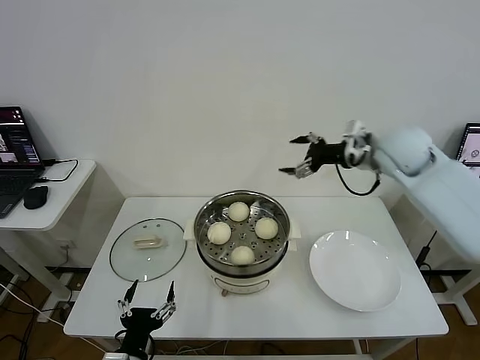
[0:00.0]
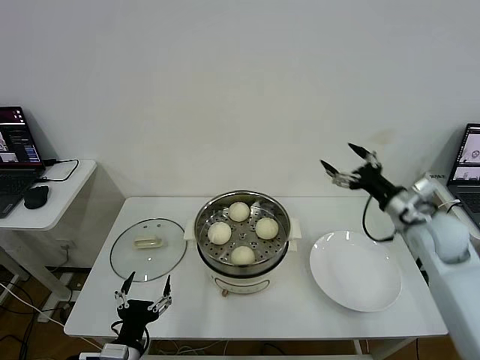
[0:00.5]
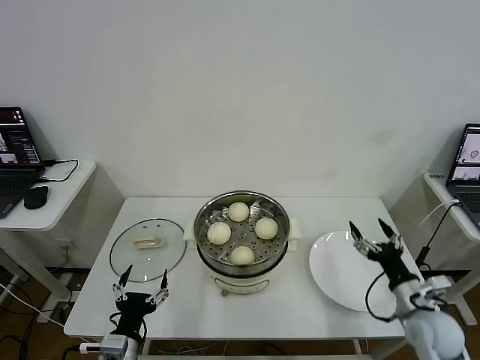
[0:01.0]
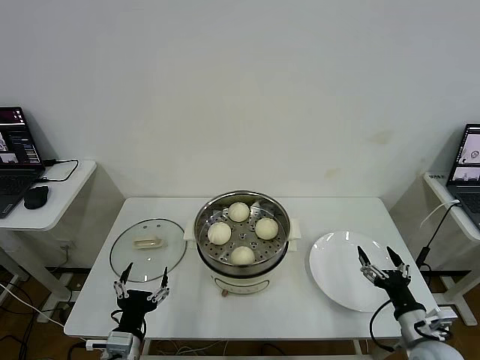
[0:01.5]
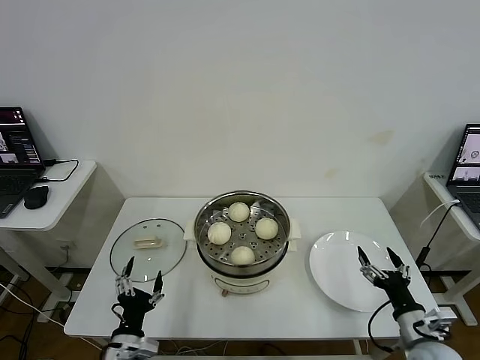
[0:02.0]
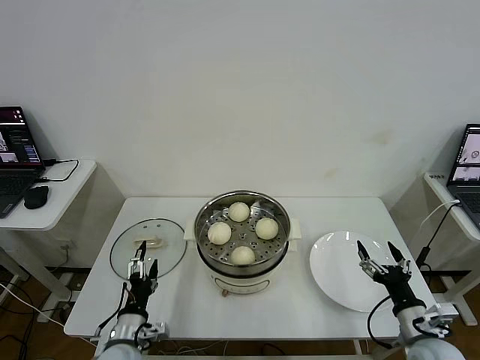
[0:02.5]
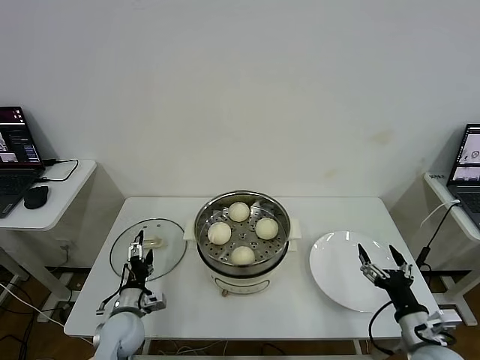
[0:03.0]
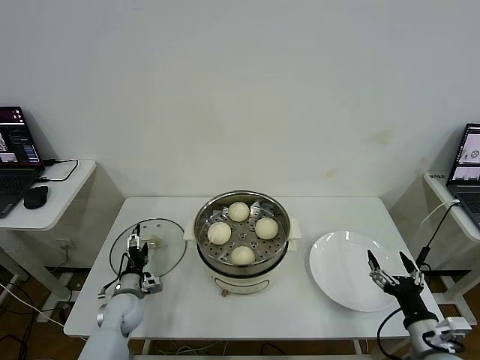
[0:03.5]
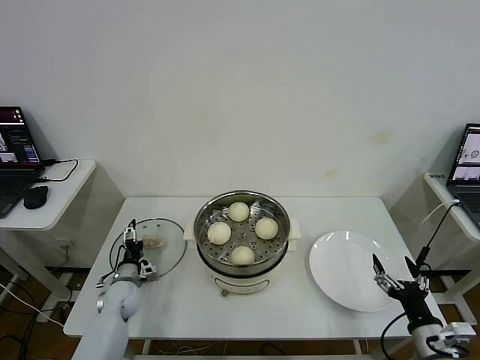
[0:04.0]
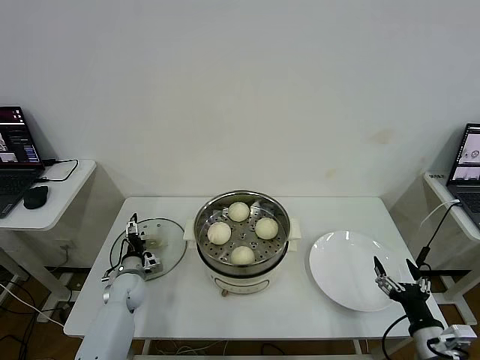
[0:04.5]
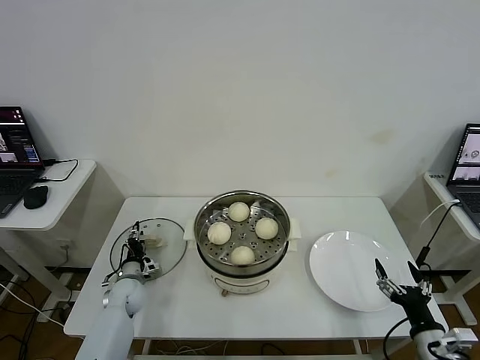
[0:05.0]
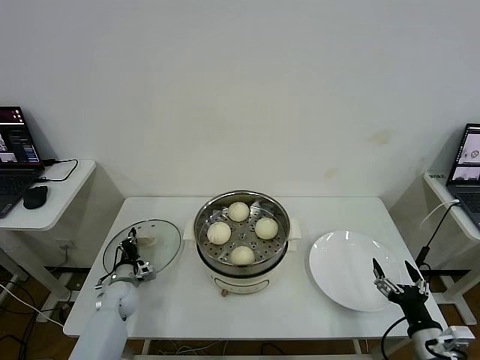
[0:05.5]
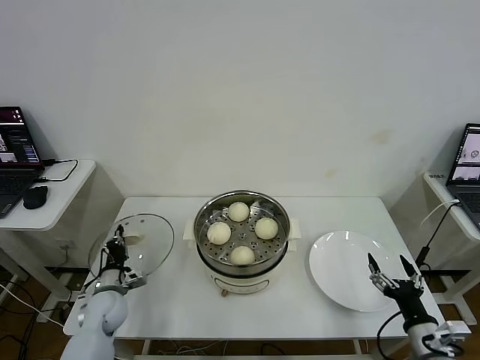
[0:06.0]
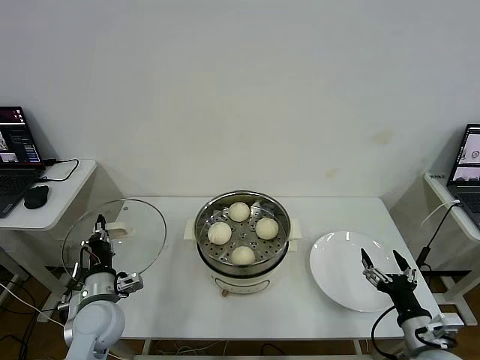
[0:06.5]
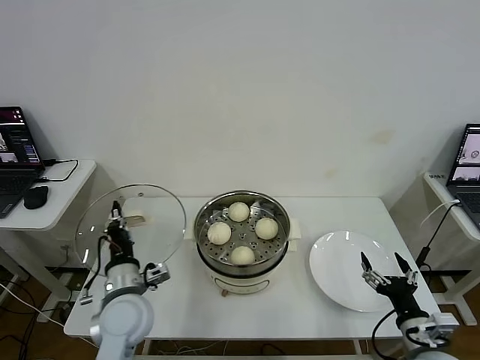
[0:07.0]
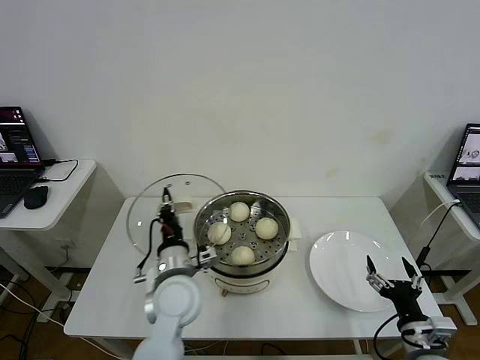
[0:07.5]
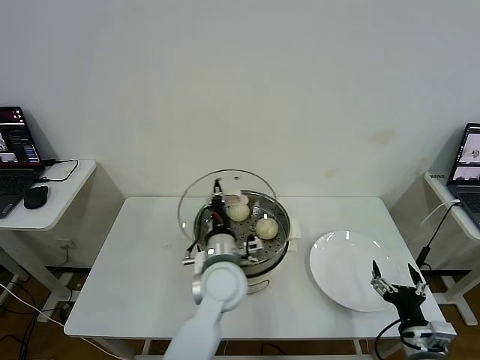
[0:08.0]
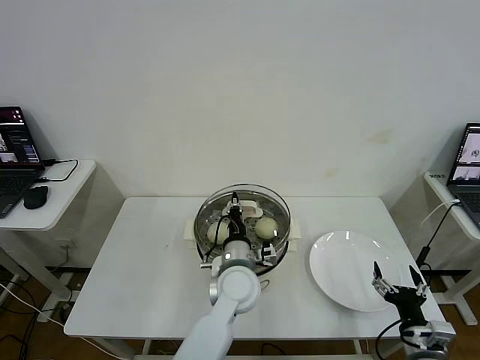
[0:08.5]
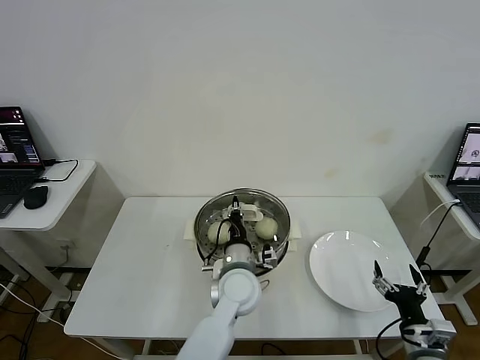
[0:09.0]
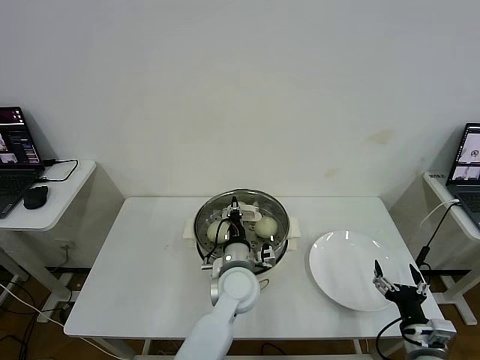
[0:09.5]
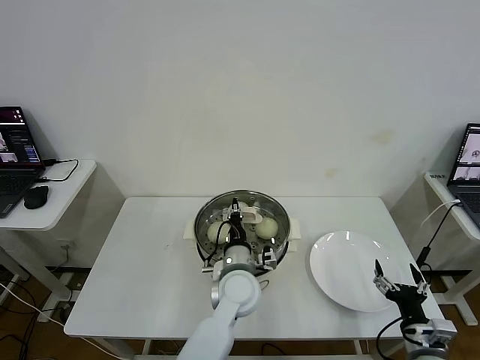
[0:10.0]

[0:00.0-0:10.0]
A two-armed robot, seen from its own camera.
Task of the whole recording: take steamed baozi put them in steamer then cover it.
Step, 0:00.0 to 0:05.5: Grasp the pot lid with left gripper.
0:00.0 to 0:02.0: The left gripper shifts by approximately 5 cm, while the right gripper travels backward and downward by some 40 cm.
0:02.0 to 0:04.0: The left gripper travels forward by approximately 20 cm.
0:04.0 to 0:06.0: The left gripper closes.
0:06.0 to 0:08.0: The left gripper is displaced to the right and upward by some 35 cm.
0:08.0 to 0:10.0: The left gripper changes place by about 5 cm.

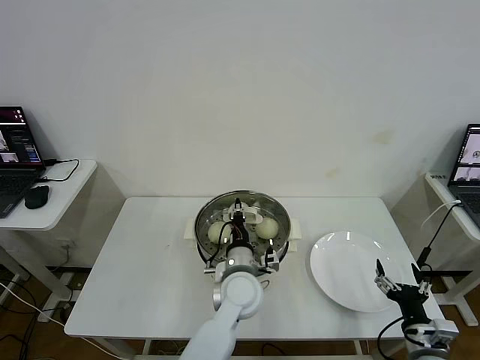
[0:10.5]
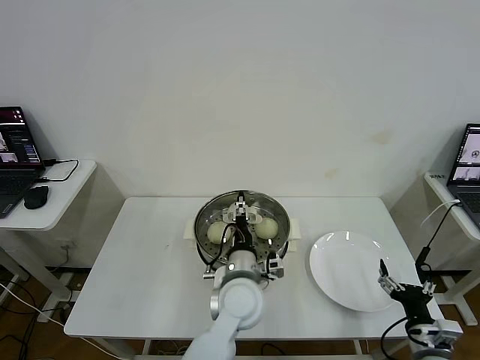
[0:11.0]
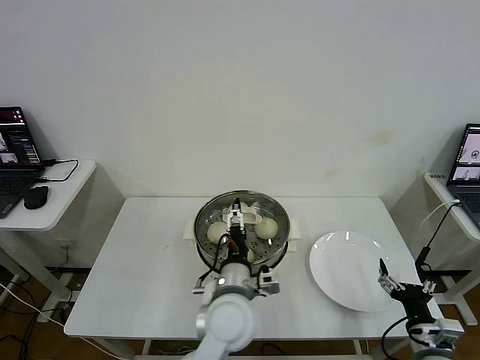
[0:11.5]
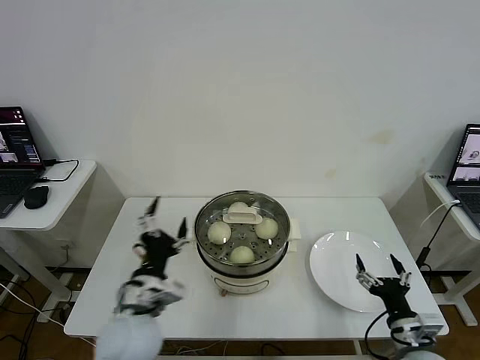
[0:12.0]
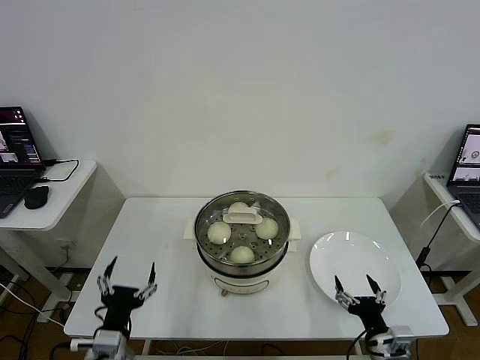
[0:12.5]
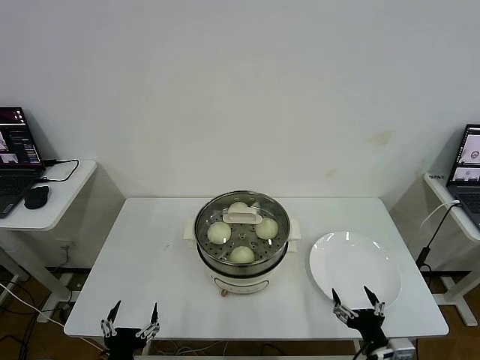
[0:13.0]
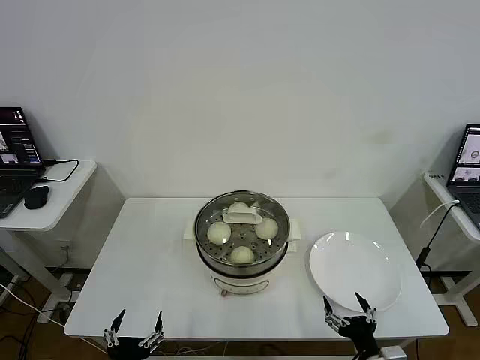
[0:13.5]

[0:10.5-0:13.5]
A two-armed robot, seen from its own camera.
Task of the whole recording: take steamed baozi put them in steamer then cover it.
0:10.5 to 0:12.0: The left gripper travels to the left and backward by approximately 20 cm, and opens up.
0:12.0 to 0:13.5: The right gripper travels to the left and backward by some 10 cm. Meanwhile the left gripper heads backward, downward and to the left, covering approximately 20 cm.

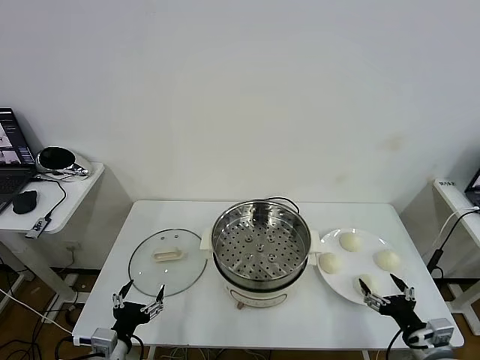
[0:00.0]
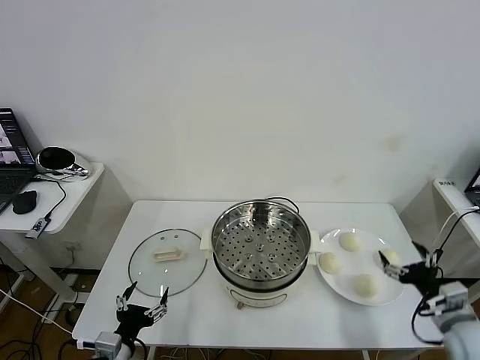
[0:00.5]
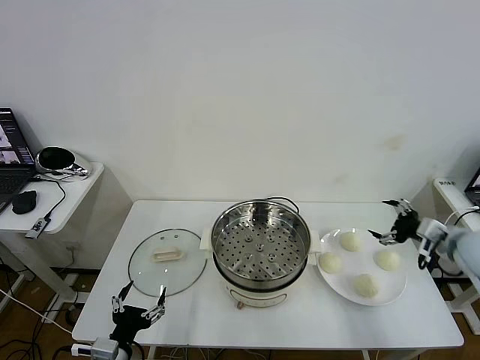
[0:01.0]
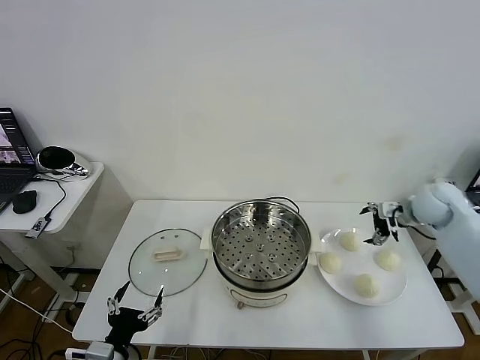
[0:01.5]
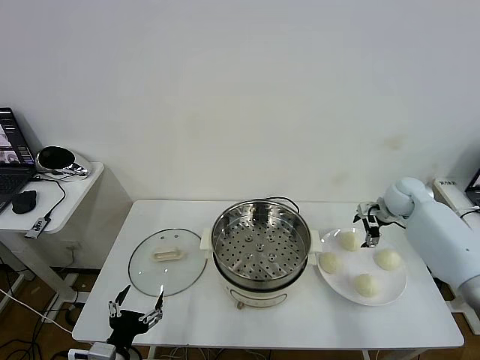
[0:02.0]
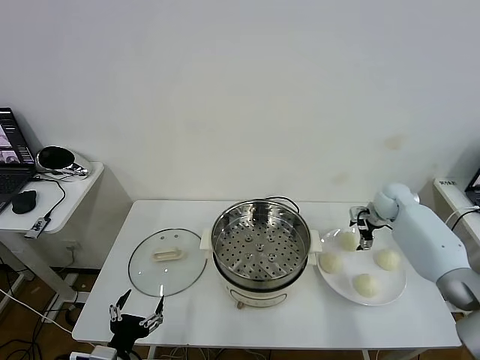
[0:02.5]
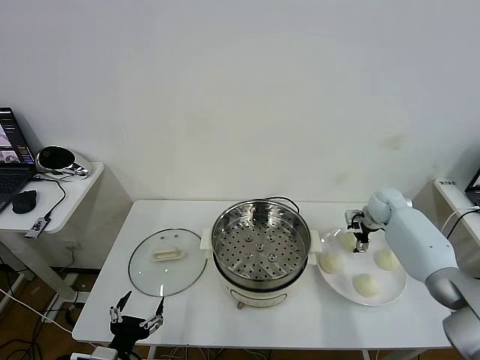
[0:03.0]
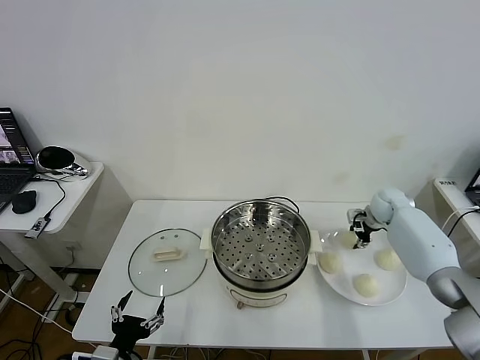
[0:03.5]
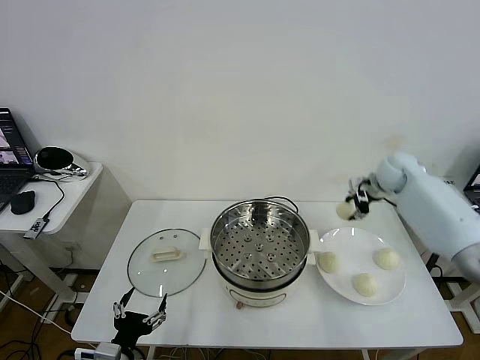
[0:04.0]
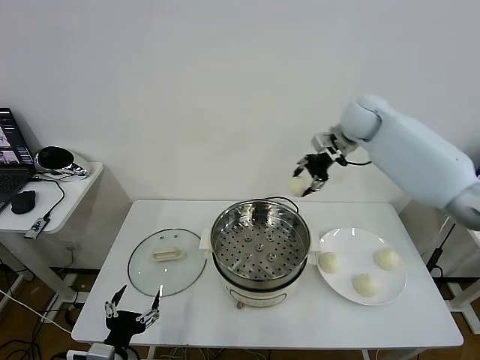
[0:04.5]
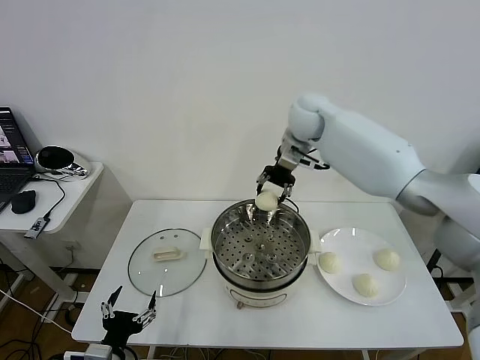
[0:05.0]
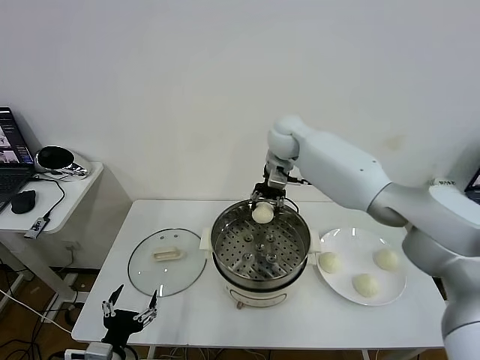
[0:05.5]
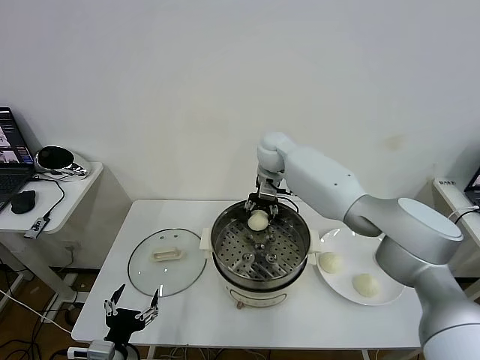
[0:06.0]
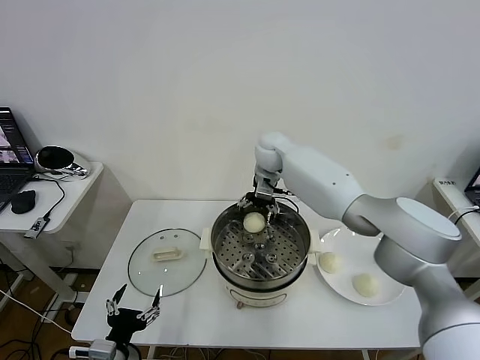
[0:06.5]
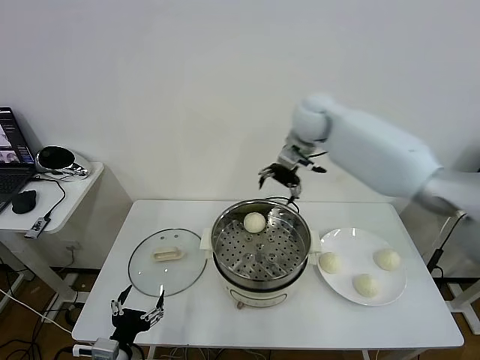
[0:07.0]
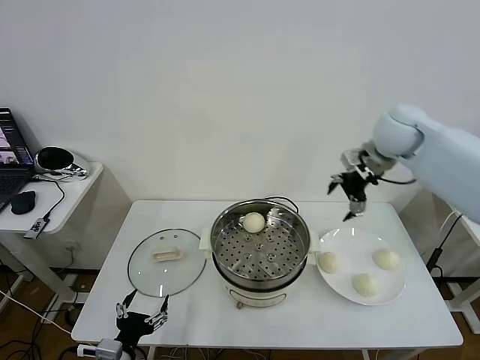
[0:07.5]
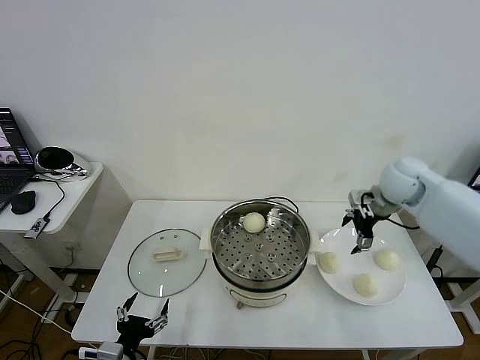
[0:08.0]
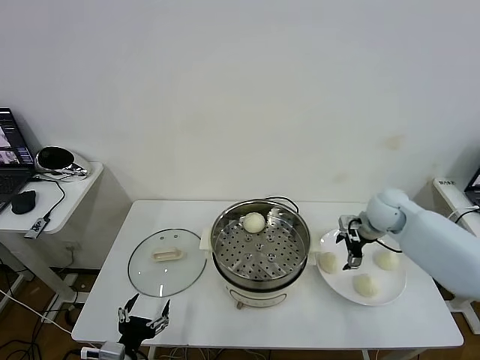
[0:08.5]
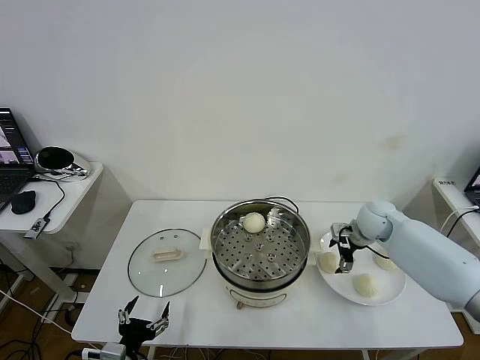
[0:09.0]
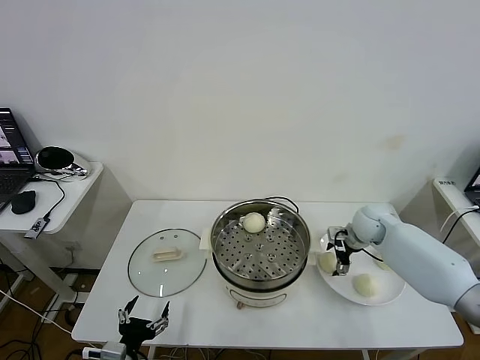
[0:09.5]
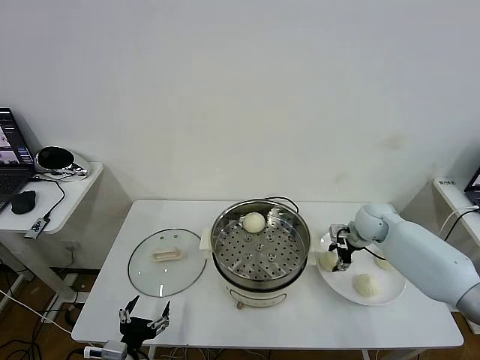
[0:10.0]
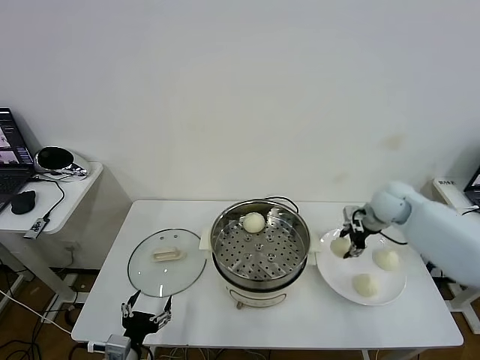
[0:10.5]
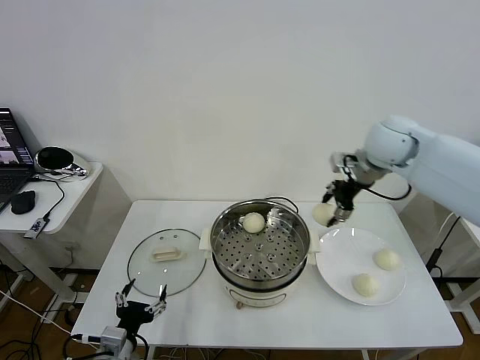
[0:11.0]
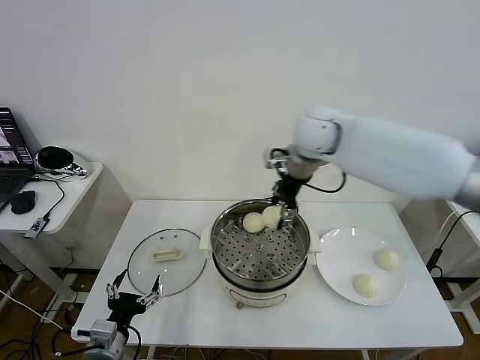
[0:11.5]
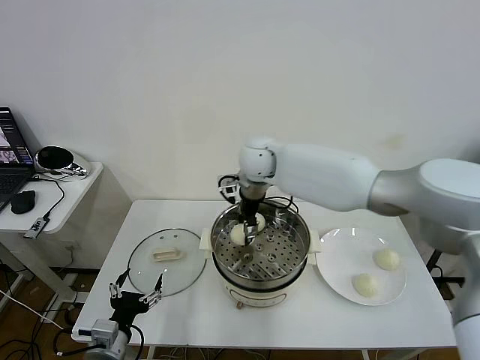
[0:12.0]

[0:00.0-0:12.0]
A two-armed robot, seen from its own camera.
Task of the whole recording: take steamed baozi put them in steamer then cover it.
Step, 0:00.0 to 0:03.0: Grasp the baozi in the plate with right gripper.
Step, 0:03.5 to 0:06.5: Place the baozi on the steamer with right gripper.
Step, 0:07.0 to 0:09.5: Grasp the baozi in the plate with right gripper.
0:02.0 to 0:04.0: The right gripper goes about 15 cm upward and to the left, and closes.
0:04.0 to 0:06.0: The right gripper goes roughly 30 cm to the left.
0:06.0 to 0:08.0: The right gripper is displaced to the right and backward by roughly 30 cm, and opens up.
0:08.0 to 0:10.0: The right gripper heads downward, covering some 10 cm, and closes up.
0:10.0 to 0:12.0: The right gripper heads to the left and upward, covering some 35 cm.
